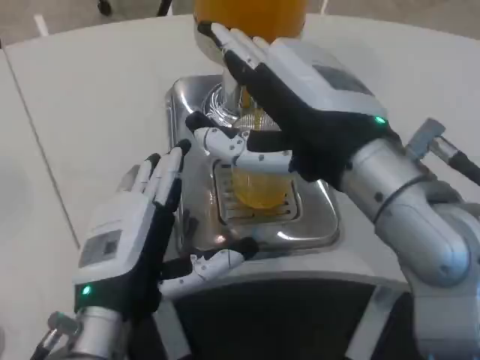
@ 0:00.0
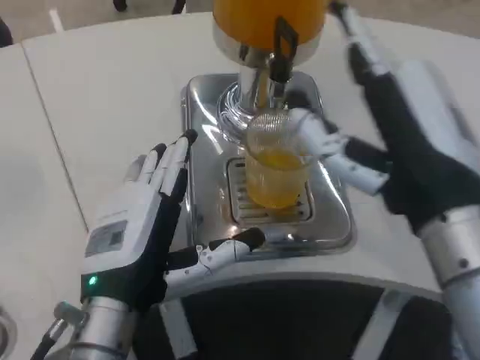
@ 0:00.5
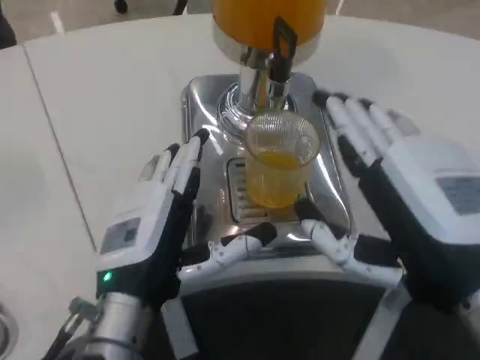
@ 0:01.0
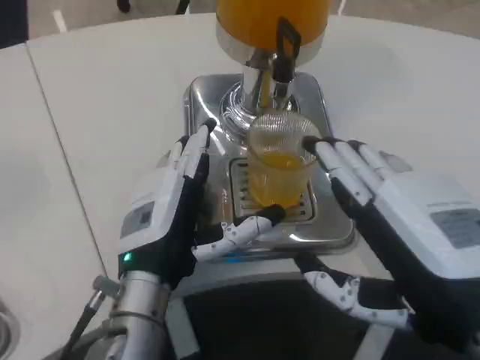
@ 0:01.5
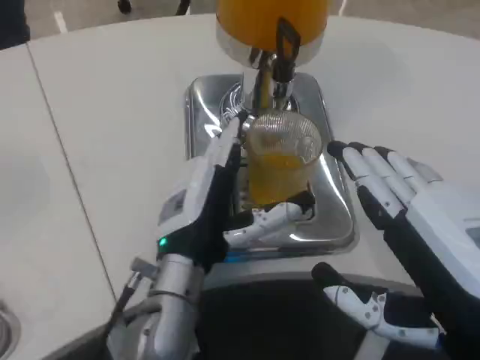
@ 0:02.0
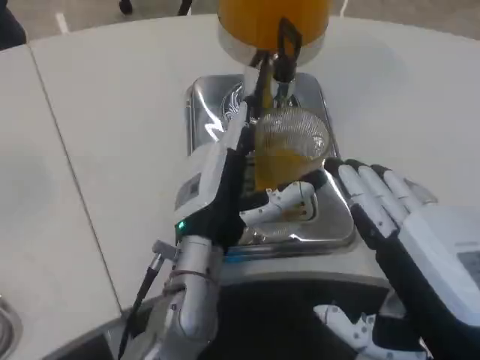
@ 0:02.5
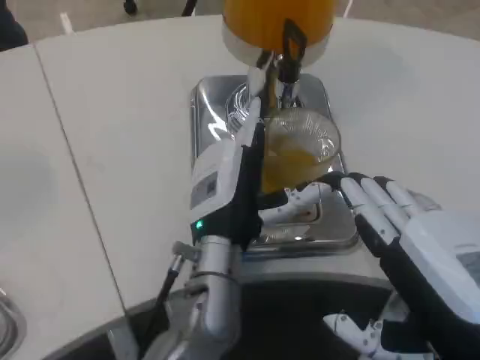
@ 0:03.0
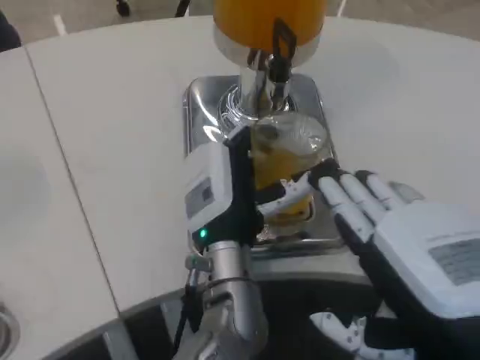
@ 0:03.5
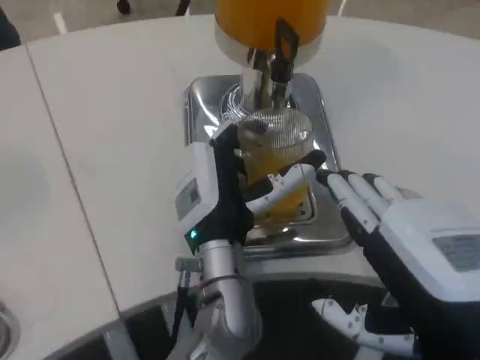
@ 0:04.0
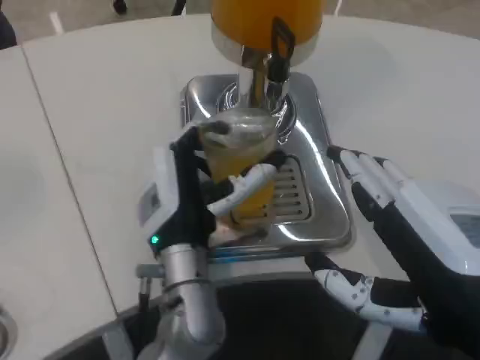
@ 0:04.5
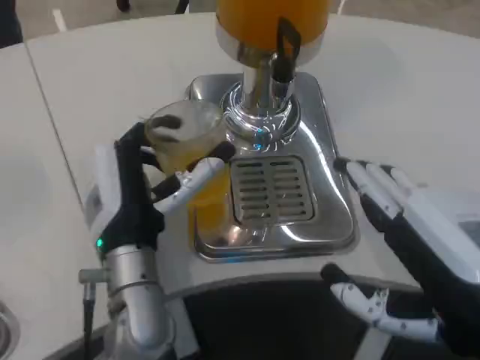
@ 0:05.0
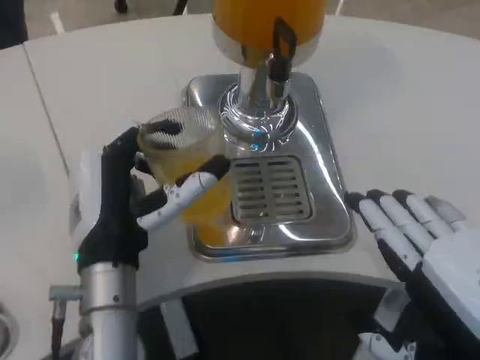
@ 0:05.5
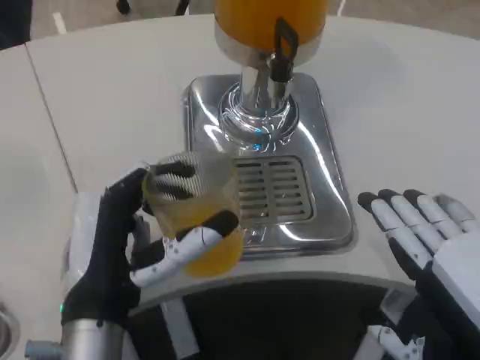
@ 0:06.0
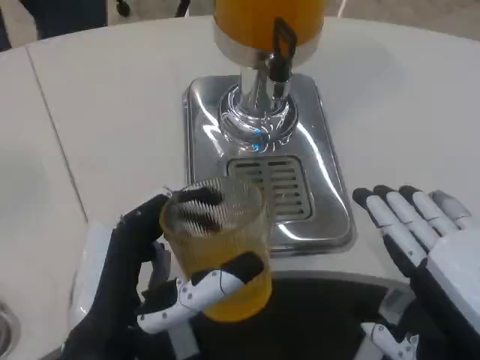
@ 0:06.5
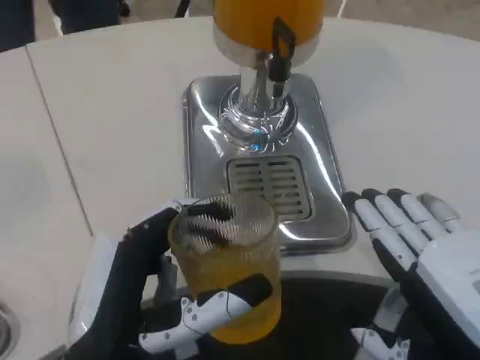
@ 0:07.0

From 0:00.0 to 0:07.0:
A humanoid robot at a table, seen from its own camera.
Task of the whole recording: Grasp the cup under the faucet to collect the drink, then remove the cup.
From 0:00.0 to 0:02.0: The right hand moves backward, to the right and downward, roughly 15 cm. The left hand is displaced forward and to the right by some 10 cm.
From 0:02.0 to 0:03.5: The left hand shifts roughly 5 cm to the right.
From 0:03.5 to 0:05.0: The left hand is displaced to the left by some 10 cm.
From 0:05.0 to 0:07.0: The left hand travels backward by approximately 15 cm.

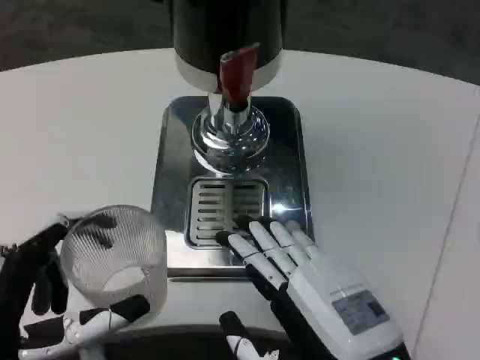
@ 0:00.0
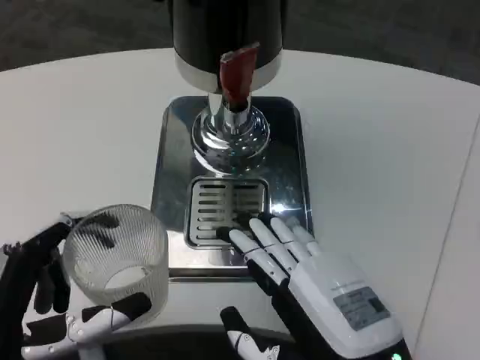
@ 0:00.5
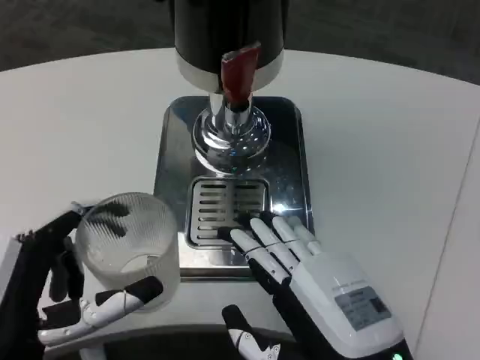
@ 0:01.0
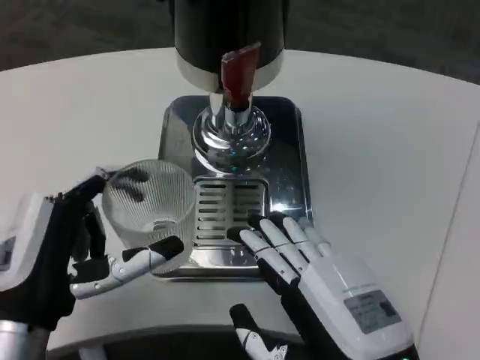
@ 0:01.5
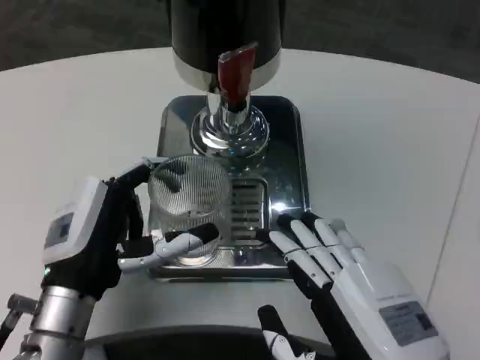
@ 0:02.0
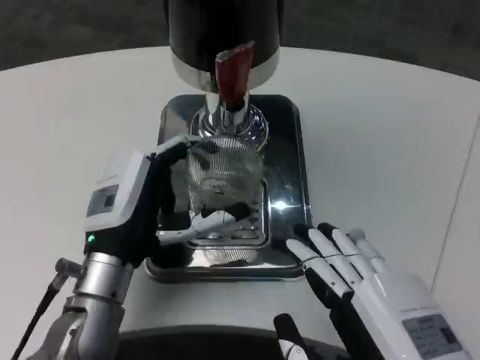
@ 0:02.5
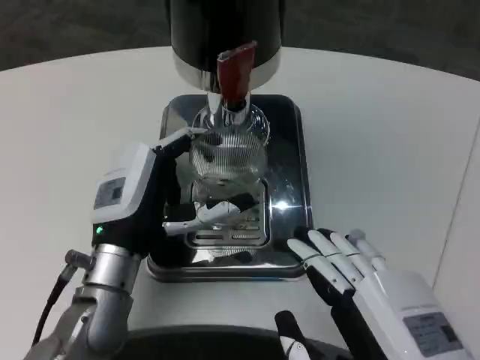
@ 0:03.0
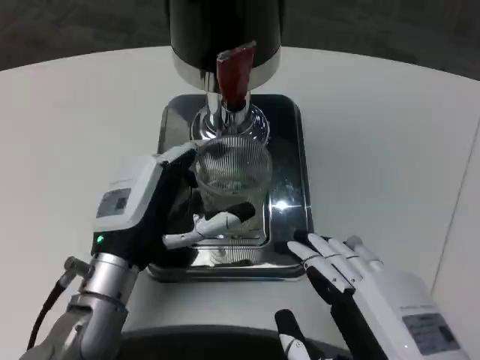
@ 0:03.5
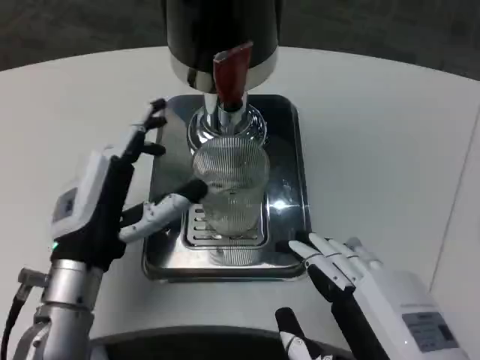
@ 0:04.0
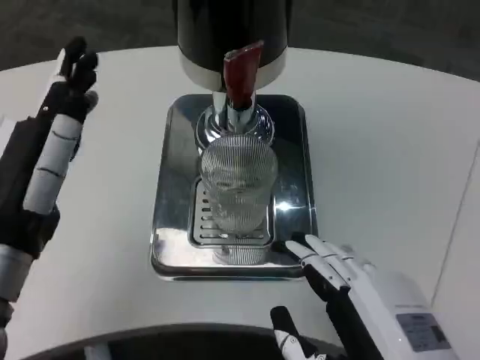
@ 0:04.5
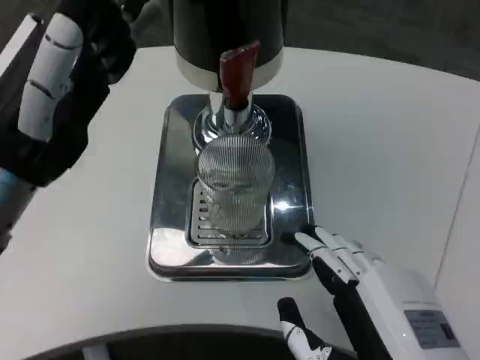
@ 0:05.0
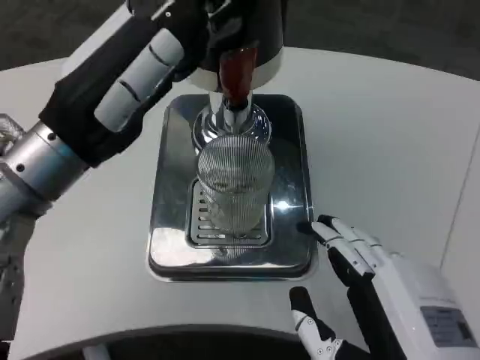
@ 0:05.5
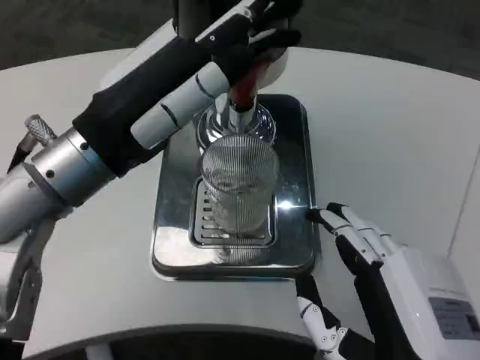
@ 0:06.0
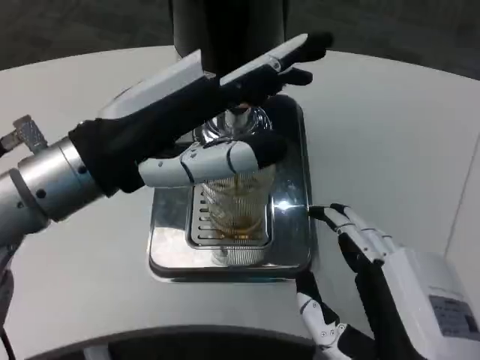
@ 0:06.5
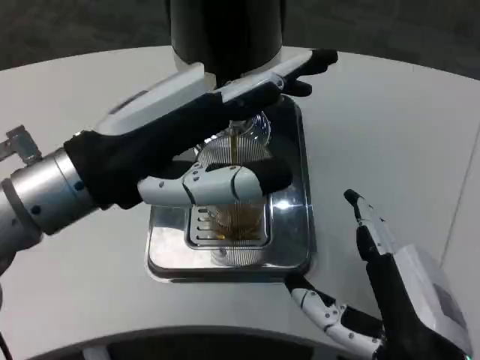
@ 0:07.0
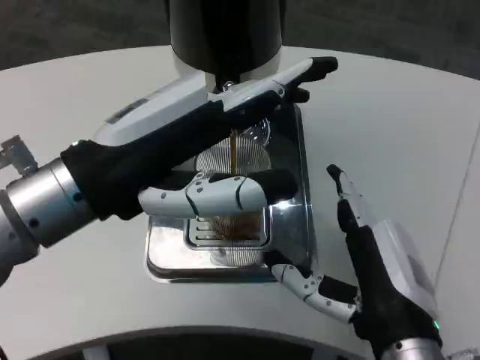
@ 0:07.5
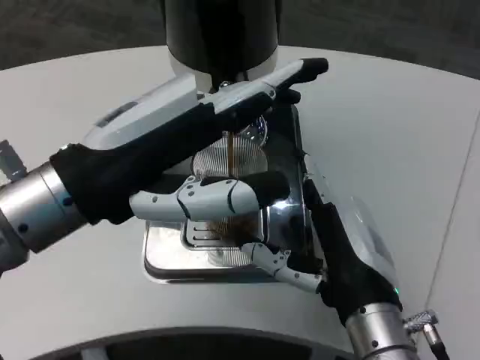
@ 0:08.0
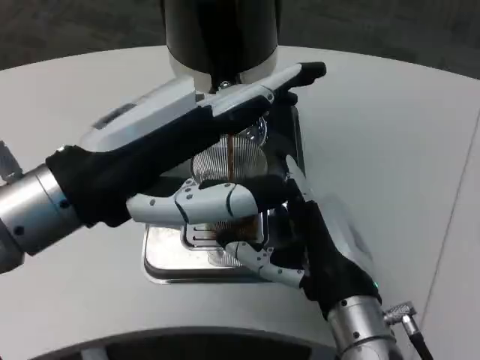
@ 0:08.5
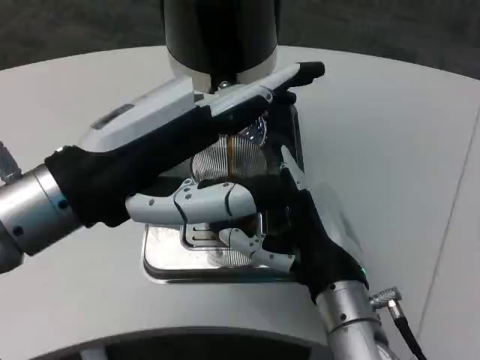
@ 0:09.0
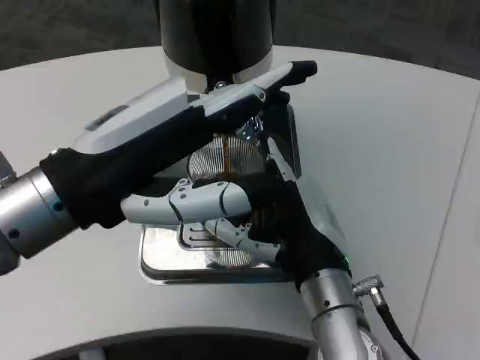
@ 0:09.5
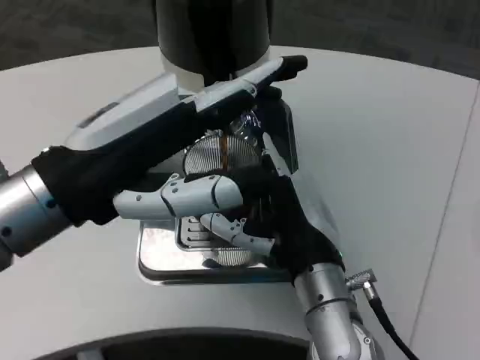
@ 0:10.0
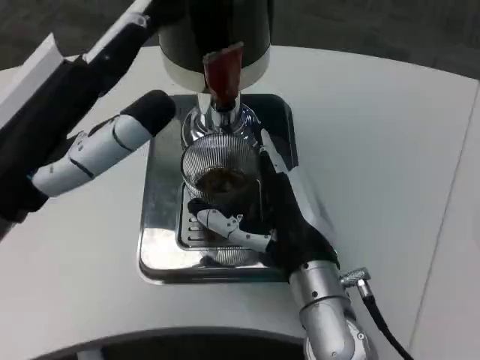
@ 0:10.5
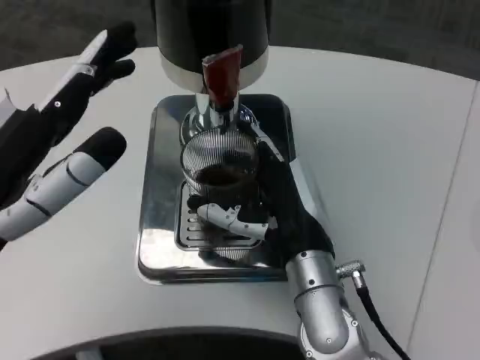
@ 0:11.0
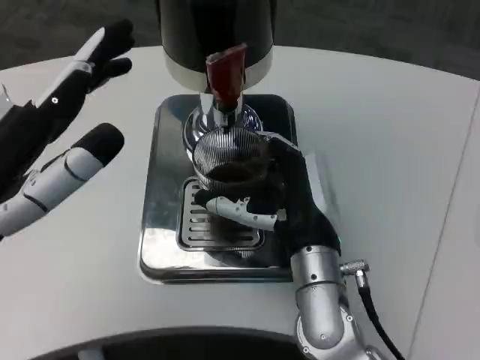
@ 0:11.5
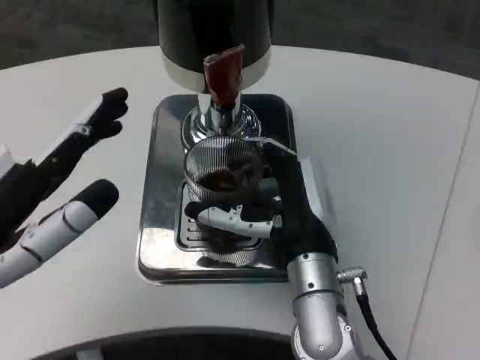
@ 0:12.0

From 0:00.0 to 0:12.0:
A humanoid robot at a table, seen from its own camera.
Task of the whole recording: Grasp the cup under the faucet to collect the drink, then remove the cup.
From 0:00.0 to 0:02.0: The left hand is displaced forward by some 10 cm.
From 0:04.0 to 0:06.0: The left hand shifts approximately 15 cm upward.
From 0:06.0 to 0:08.0: The right hand shifts some 10 cm forward, while the left hand changes place by approximately 5 cm.
From 0:08.0 to 0:10.0: The right hand ends up about 5 cm from where it was.
From 0:10.0 to 0:12.0: The left hand shifts roughly 10 cm downward, to the left and backward.

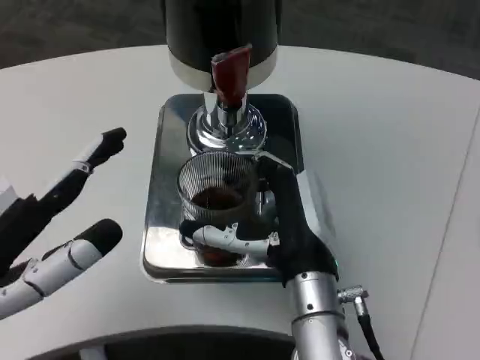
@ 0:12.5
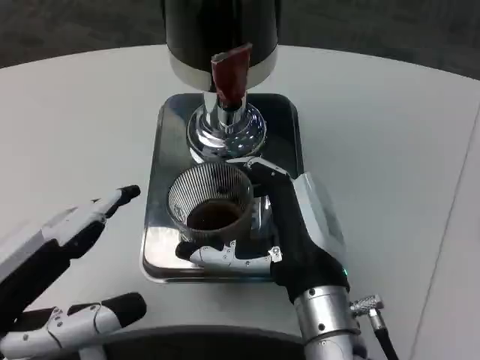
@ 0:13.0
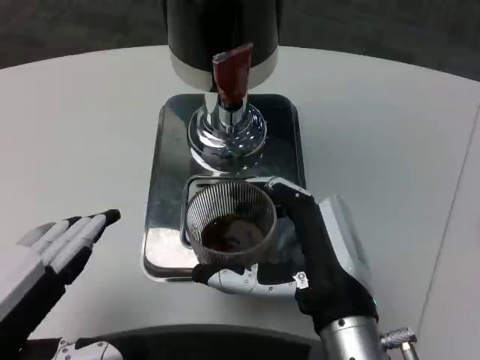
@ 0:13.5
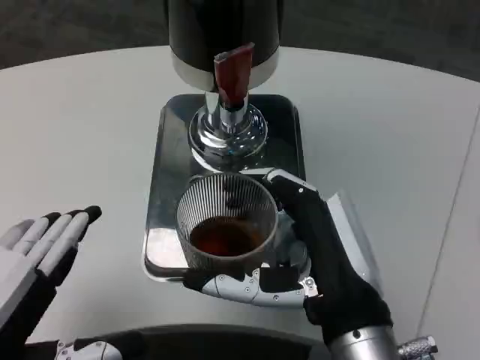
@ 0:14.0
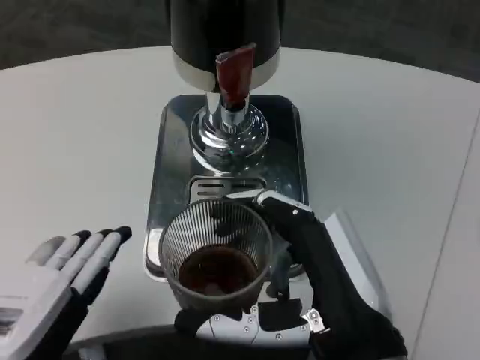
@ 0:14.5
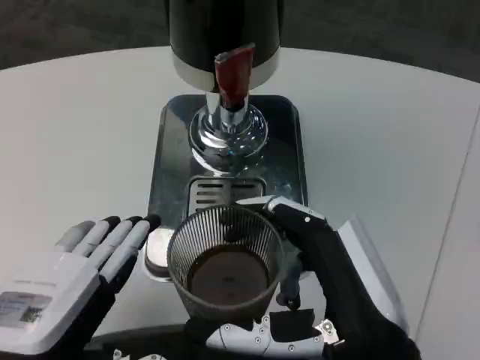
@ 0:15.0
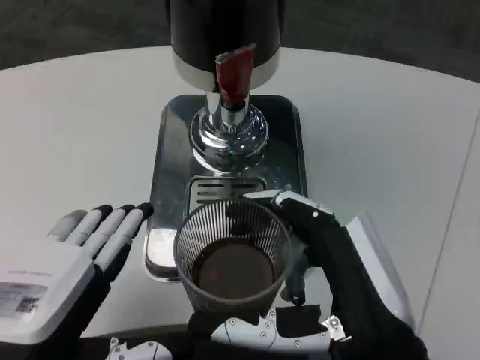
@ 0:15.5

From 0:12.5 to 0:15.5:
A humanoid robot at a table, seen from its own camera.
Task of the whole recording: Grasp the cup under the faucet to collect the drink, then remove the cup.
From 0:12.5 to 0:14.0: The left hand changes place by roughly 5 cm. The right hand goes some 10 cm backward.

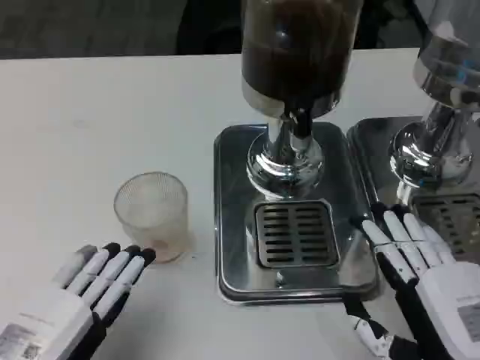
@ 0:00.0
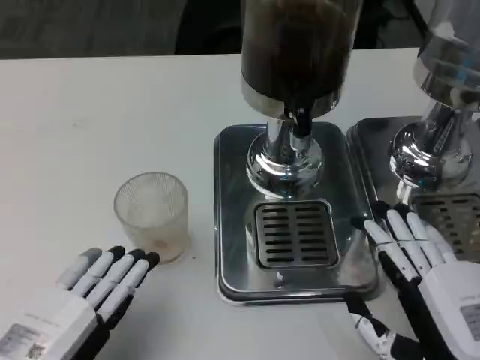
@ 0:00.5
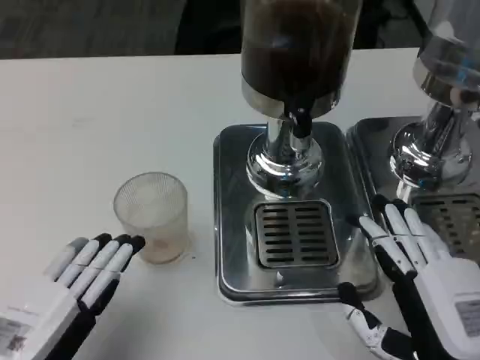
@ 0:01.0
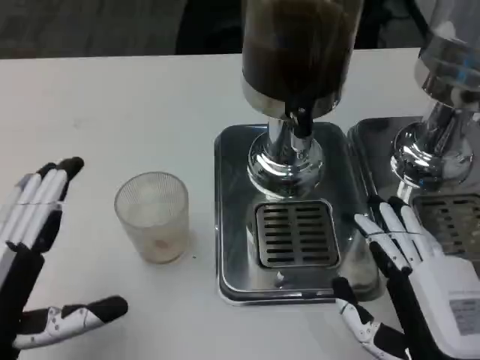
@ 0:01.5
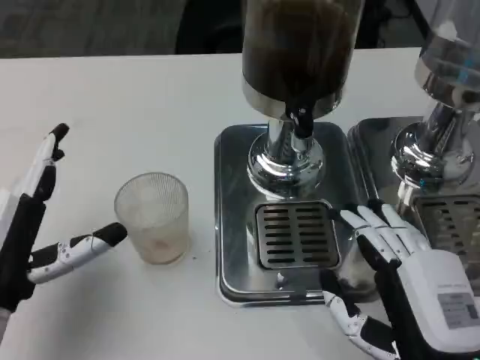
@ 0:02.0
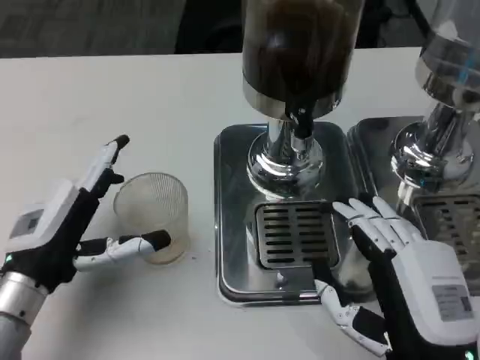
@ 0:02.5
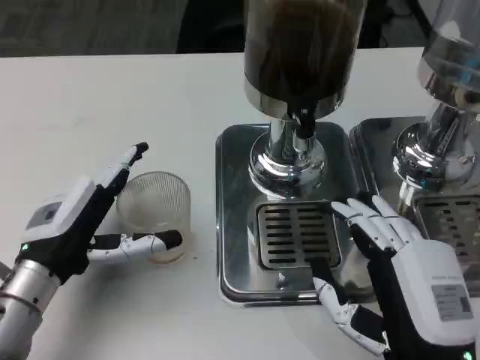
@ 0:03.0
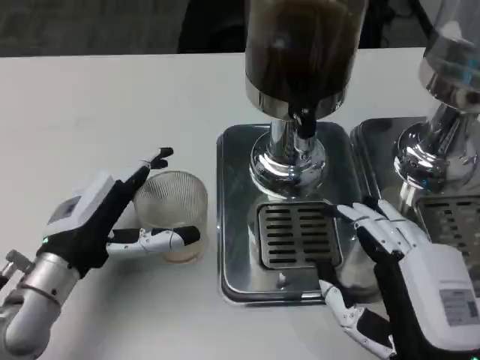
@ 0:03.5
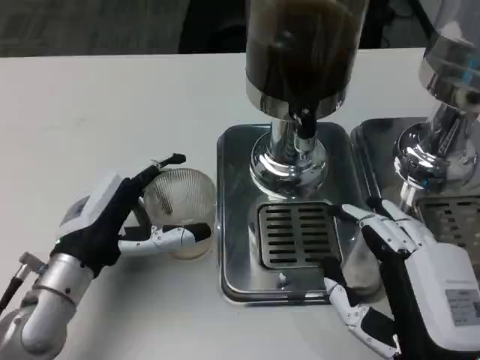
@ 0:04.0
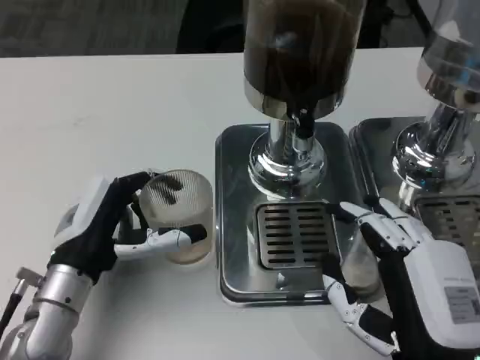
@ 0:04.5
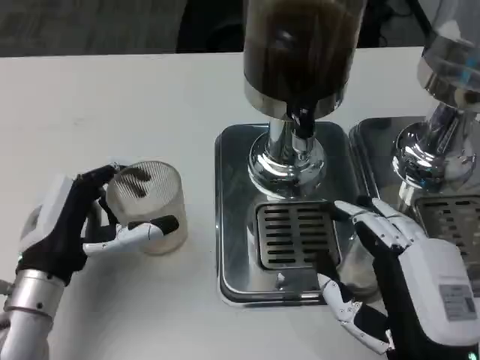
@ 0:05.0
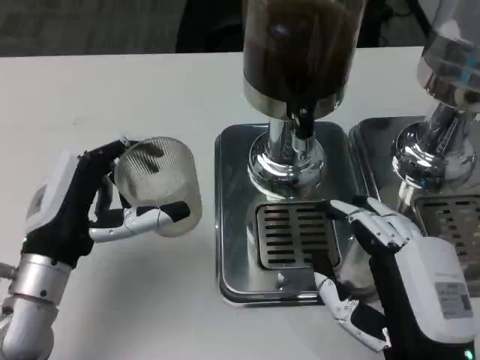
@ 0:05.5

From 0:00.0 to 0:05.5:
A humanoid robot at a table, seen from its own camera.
Task of the whole recording: Grasp the cup under the faucet to collect the drink, then remove the cup.
From 0:00.0 to 0:02.0: The left hand travels forward by roughly 10 cm.
From 0:02.0 to 0:03.5: The left hand is displaced forward by approximately 5 cm.
